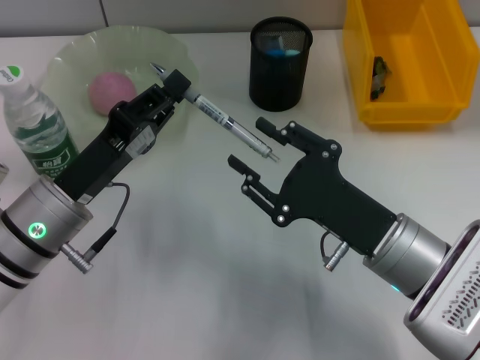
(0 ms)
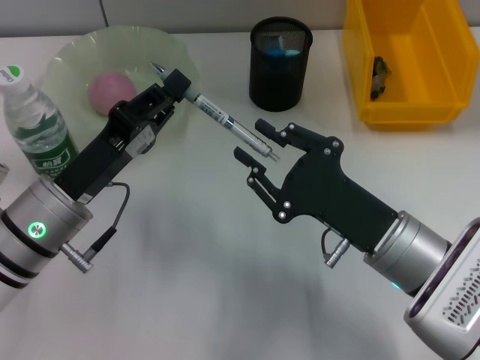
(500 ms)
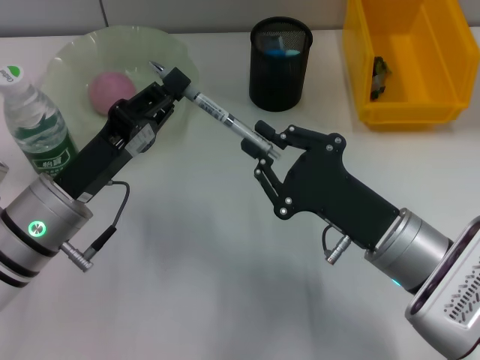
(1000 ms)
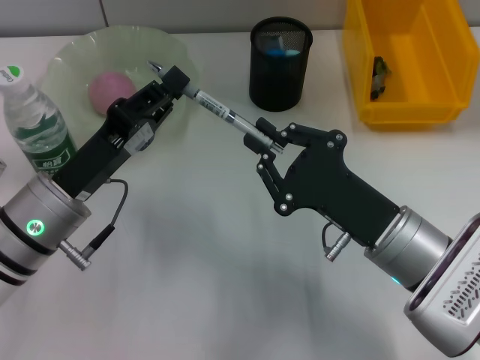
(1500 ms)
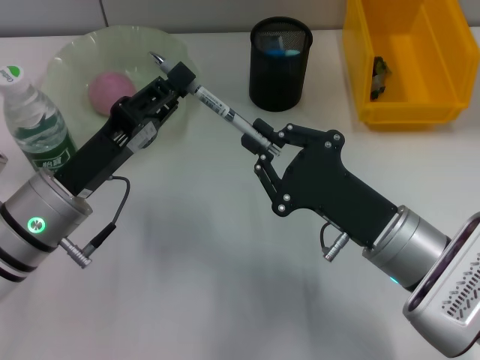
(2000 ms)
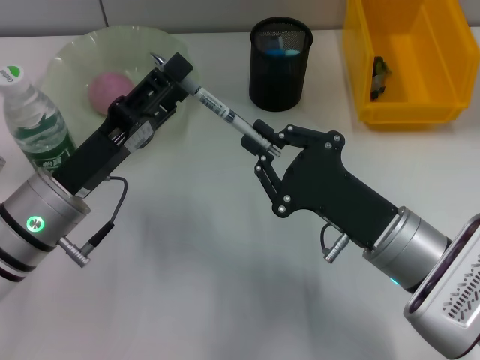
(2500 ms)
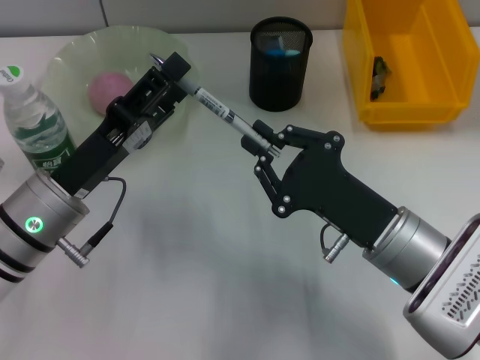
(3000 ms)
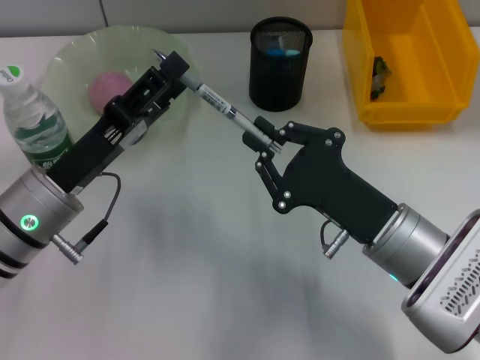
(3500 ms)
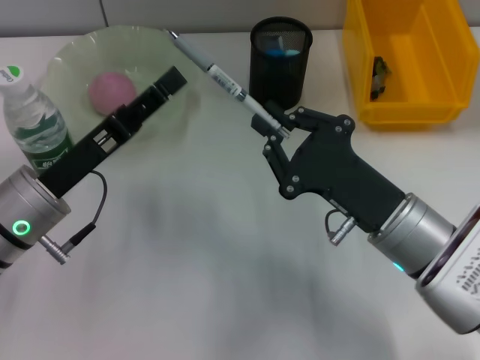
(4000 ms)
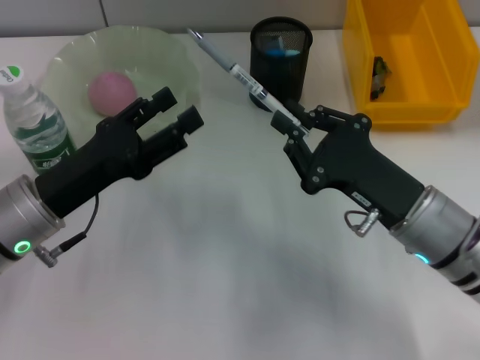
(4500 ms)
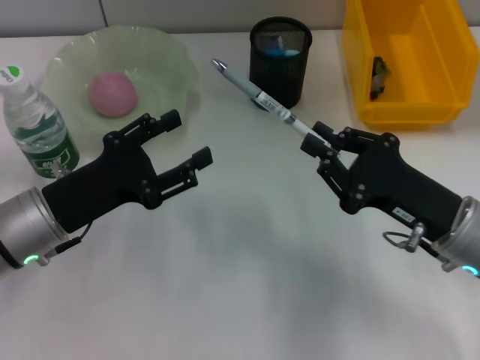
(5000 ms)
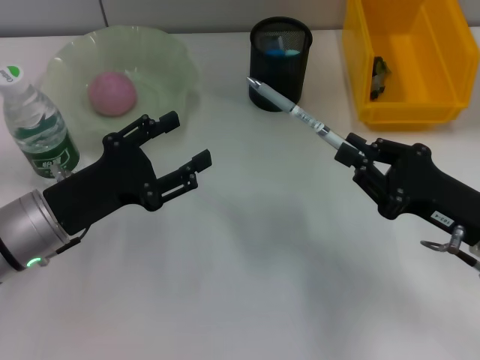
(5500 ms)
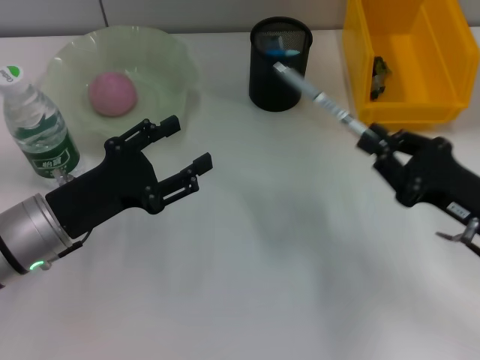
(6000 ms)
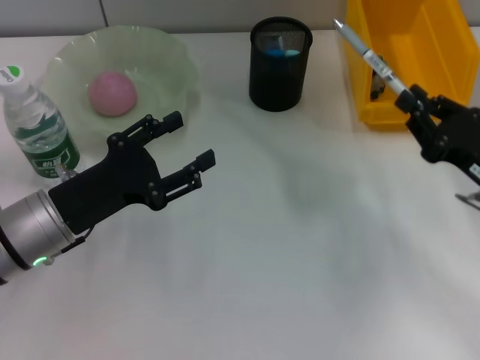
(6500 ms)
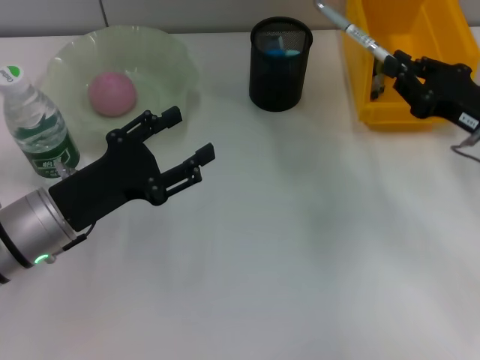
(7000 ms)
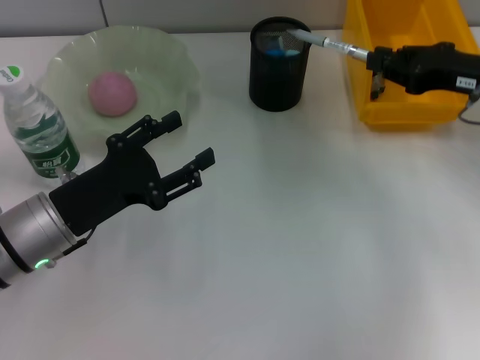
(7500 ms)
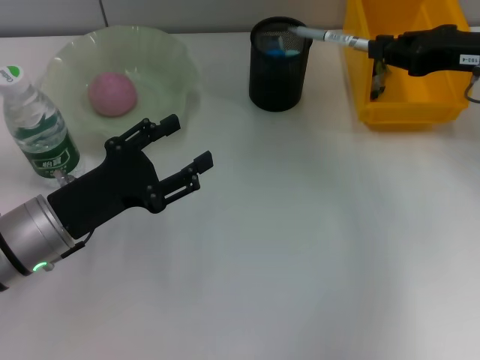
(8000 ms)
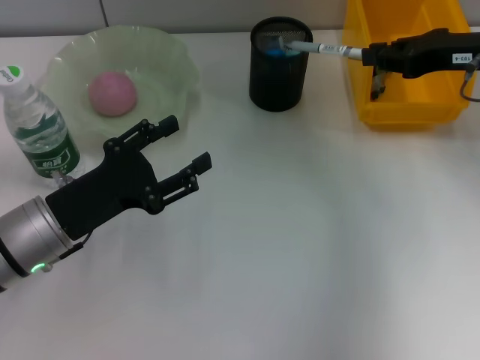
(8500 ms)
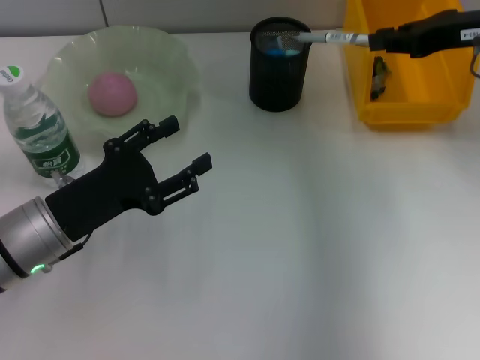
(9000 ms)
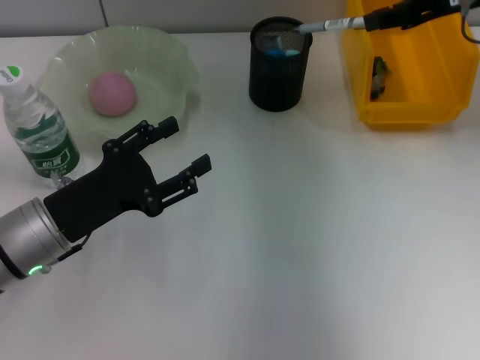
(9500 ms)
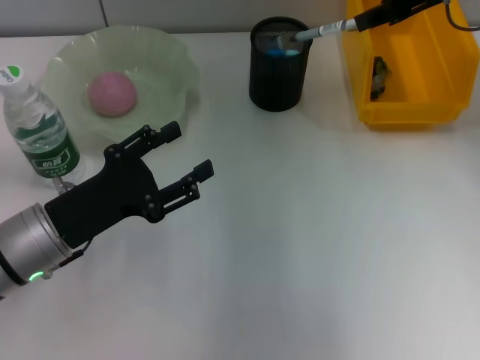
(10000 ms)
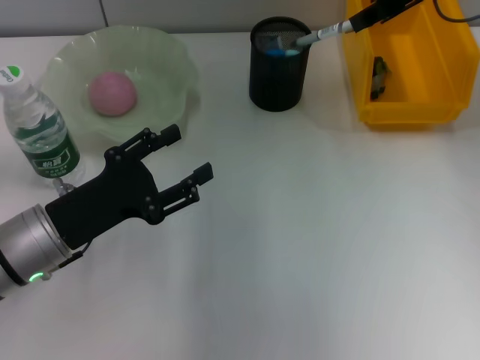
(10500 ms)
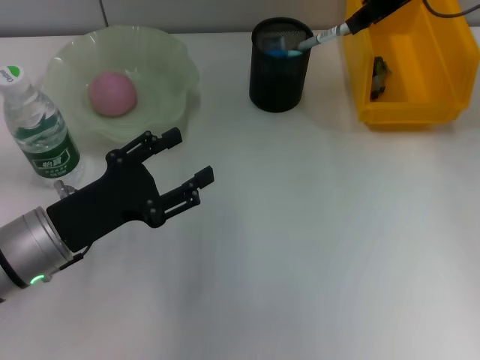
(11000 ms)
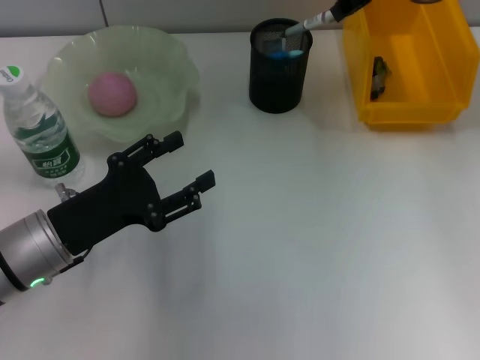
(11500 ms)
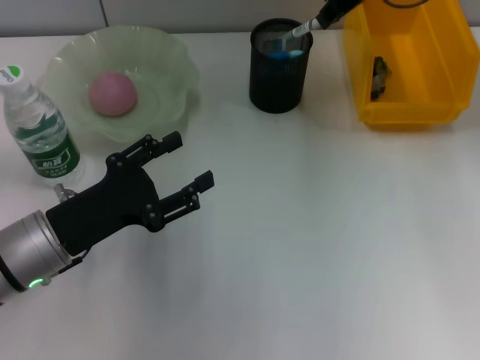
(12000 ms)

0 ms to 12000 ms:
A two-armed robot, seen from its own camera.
Step, 0 ms to 3500 ms: Pass the gray spring-action pen from the left hand to the right hand.
0 ms to 2000 ms: The right gripper closes its fingers.
2000 ms to 4000 ms: The left gripper opens its fingers.
4000 ms to 6000 ms: The right gripper travels to the right by roughly 10 cm.
6000 ms to 8000 ms: The right gripper travels forward and upward by about 20 cm.
8000 ms to 10000 ms: The right gripper moves upward, to the left and forward, about 10 cm.
10000 ms to 12000 ms: The right gripper is displaced to the left by roughly 10 cm.

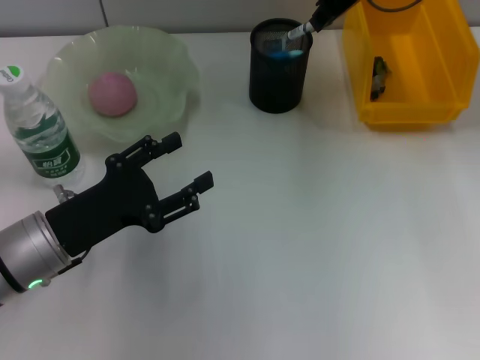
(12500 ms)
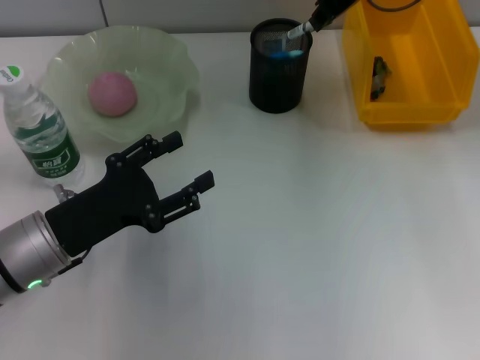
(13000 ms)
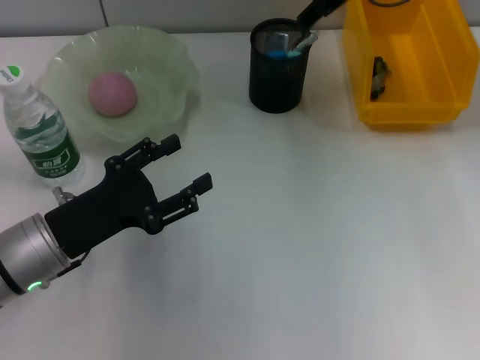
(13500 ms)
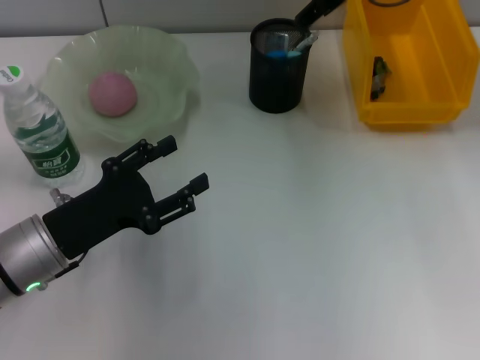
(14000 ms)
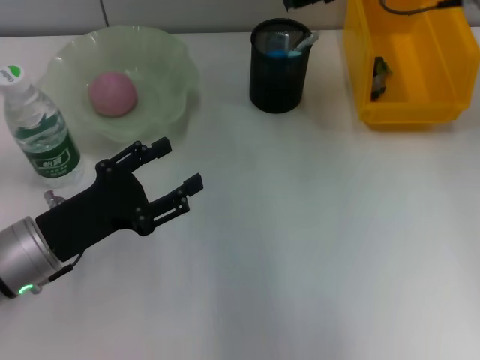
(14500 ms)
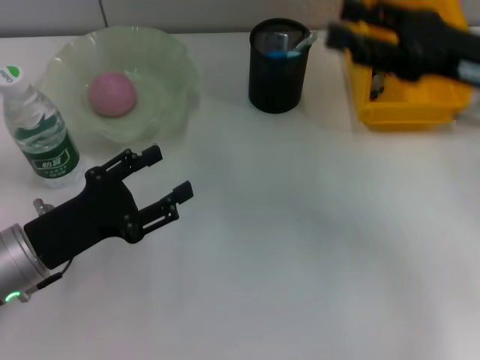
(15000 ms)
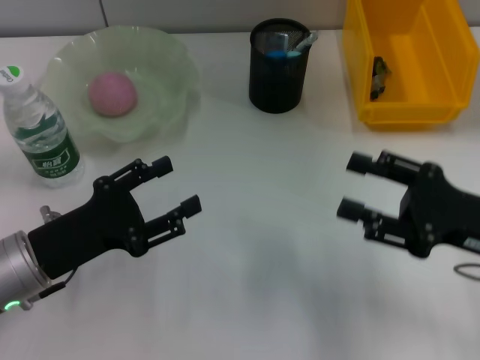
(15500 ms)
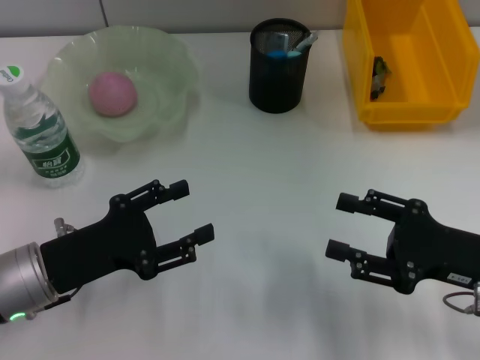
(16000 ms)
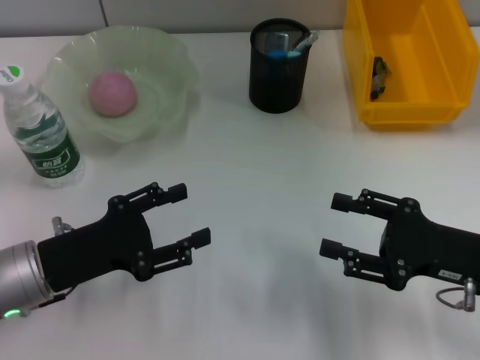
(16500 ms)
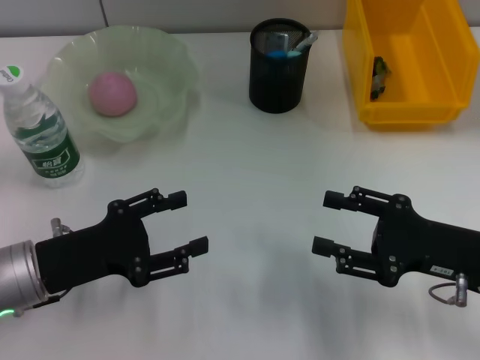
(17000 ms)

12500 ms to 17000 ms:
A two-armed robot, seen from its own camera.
12500 ms to 14500 ms: The right gripper ends up roughly 5 cm from where it was, and opens up.
14500 ms to 17000 ms: The right gripper travels downward, backward and to the right by about 30 cm.

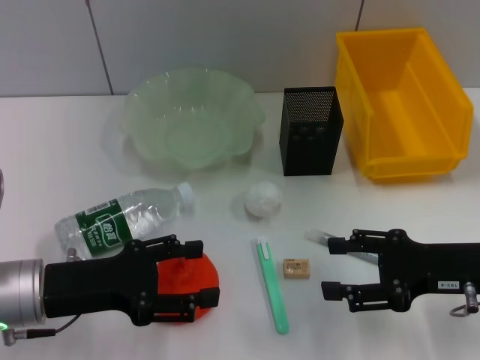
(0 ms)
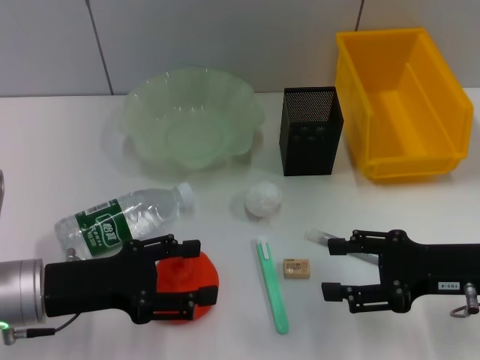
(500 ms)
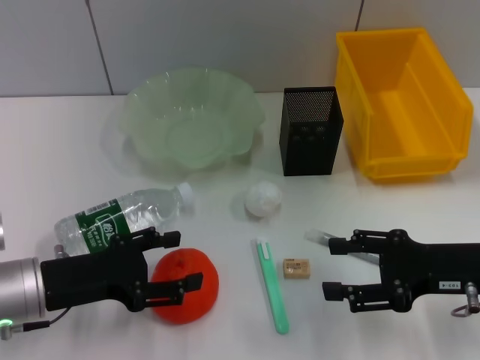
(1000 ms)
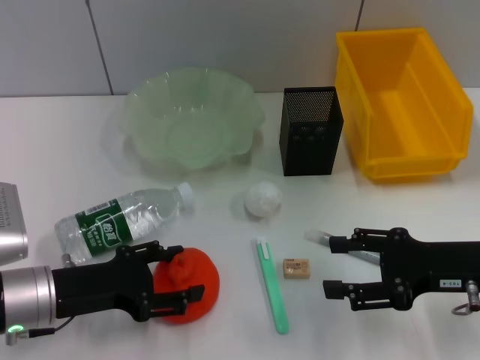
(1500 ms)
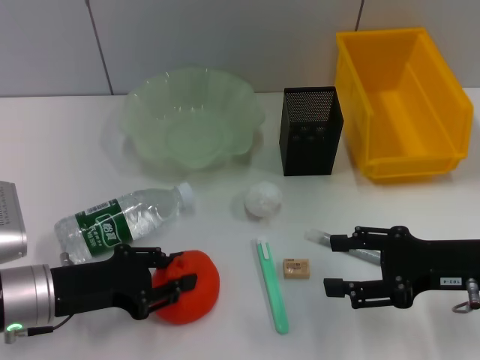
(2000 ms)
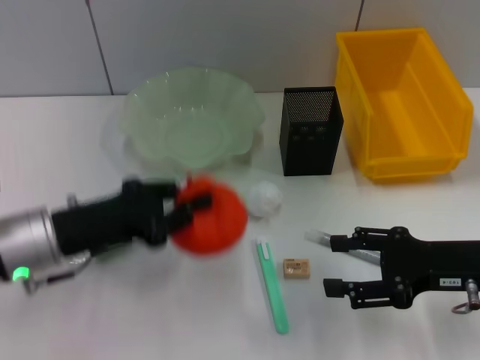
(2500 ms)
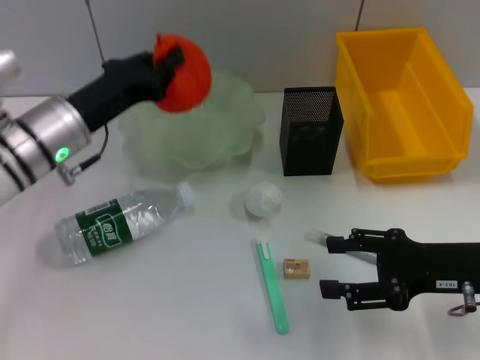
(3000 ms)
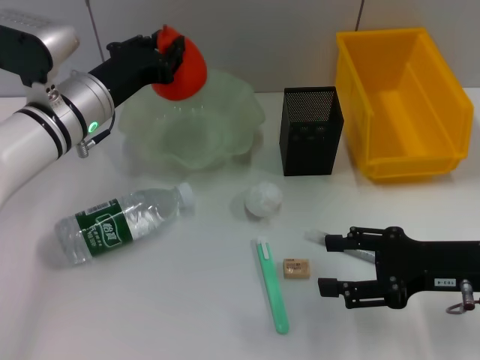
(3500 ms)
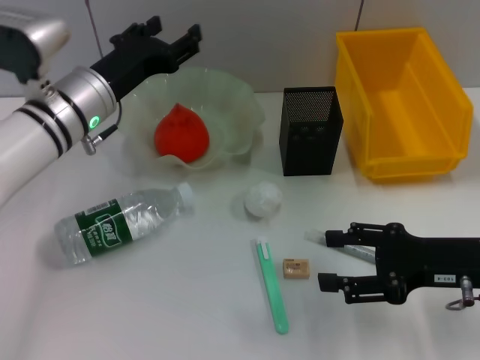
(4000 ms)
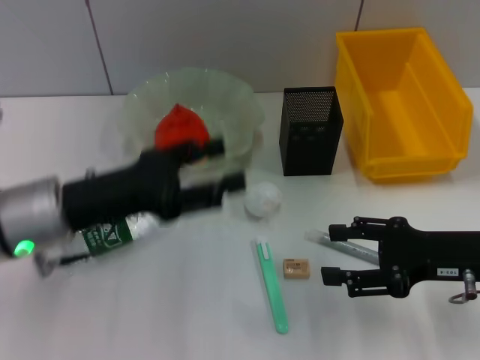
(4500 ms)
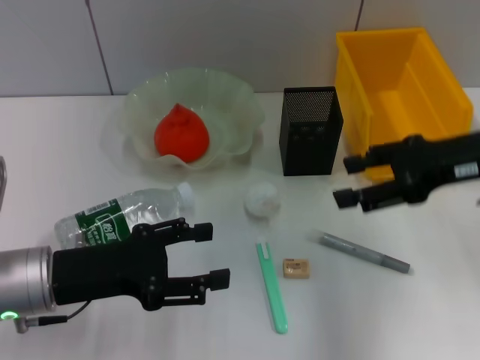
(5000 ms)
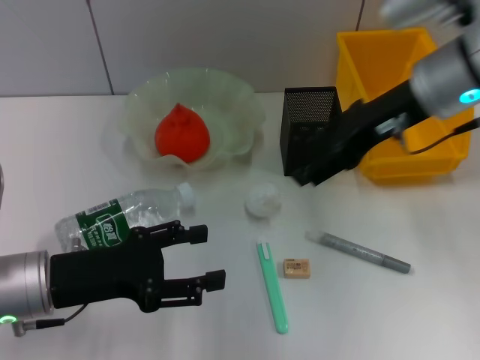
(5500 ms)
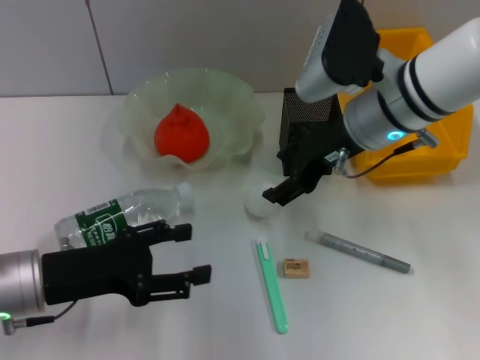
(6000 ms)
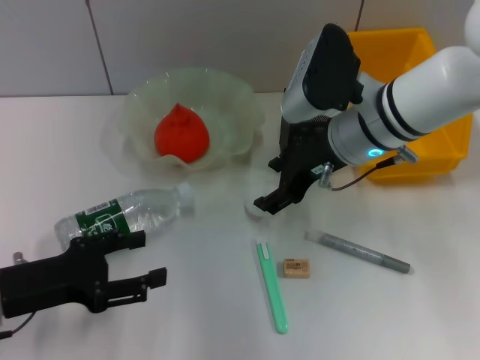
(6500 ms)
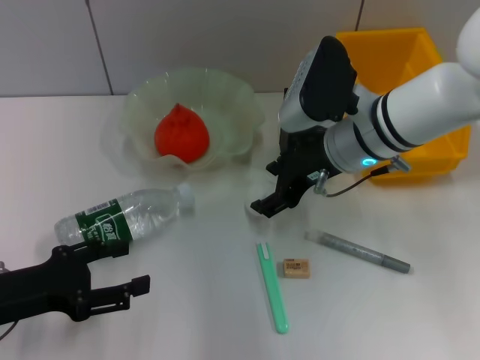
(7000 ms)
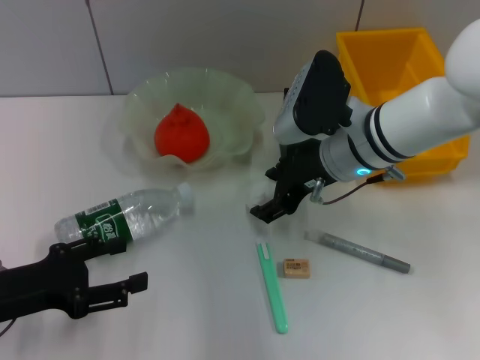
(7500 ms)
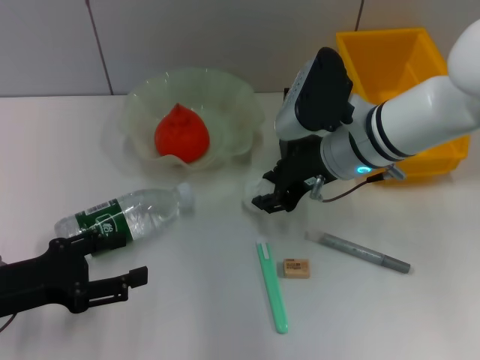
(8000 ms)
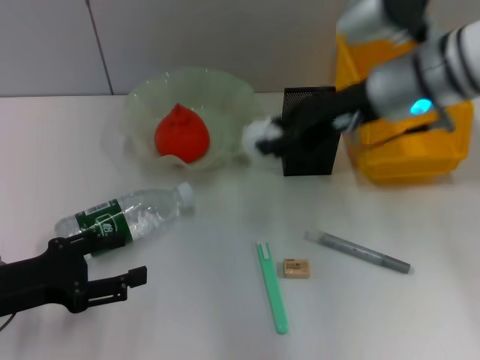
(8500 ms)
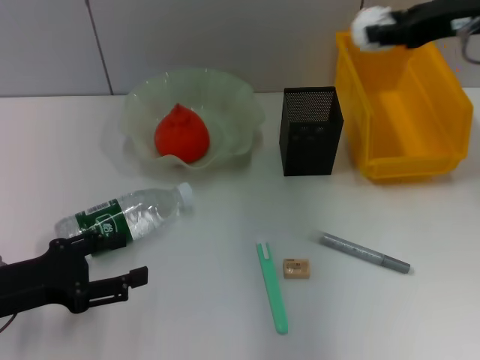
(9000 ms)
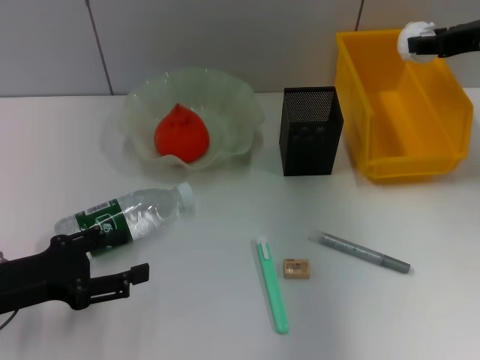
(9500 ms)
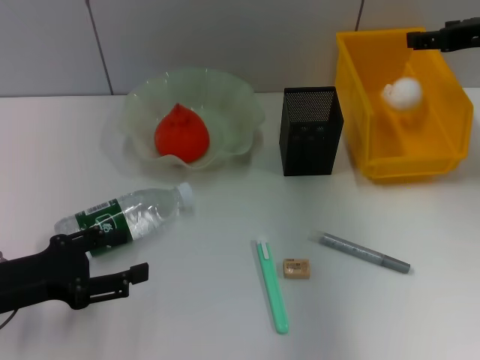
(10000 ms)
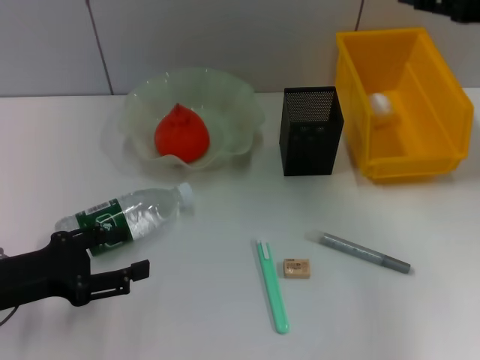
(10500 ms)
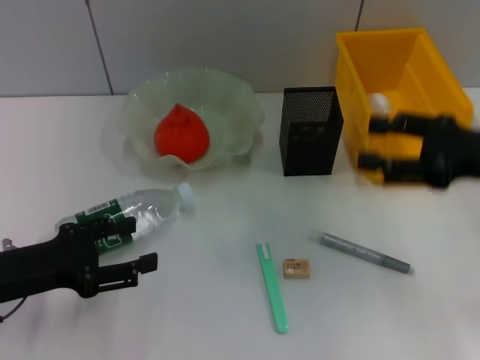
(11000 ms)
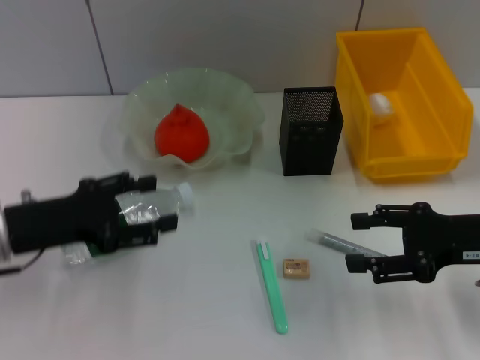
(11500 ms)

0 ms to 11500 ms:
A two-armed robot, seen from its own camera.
Step, 0 ms to 2000 ms: Grab the orange with the left hand.
Step, 2500 ms to 4000 ms: Place the orange into the fruit bowl with the left hand.
Step, 4500 ms to 7500 ms: Grab the paper ball with the right hand.
Step, 8500 ms to 10000 ms: Place the paper ball into the trash can with the right hand.
0 ms to 2000 ms: The left gripper closes up.
2000 ms to 4000 ms: The left gripper shifts some 20 cm forward, upward and to the right, and closes and opens again.
4000 ms to 6000 ms: The right gripper travels to the left, forward and upward by roughly 20 cm. The left gripper goes roughly 15 cm backward and to the left.
6000 ms to 7500 ms: The right gripper is displaced downward by some 5 cm. Meanwhile the left gripper shifts about 5 cm to the left.
7500 ms to 9500 ms: The right gripper travels to the right and upward by some 20 cm, and closes up.
9500 ms to 11500 ms: The right gripper moves backward and downward, roughly 20 cm, and opens; the left gripper shifts by approximately 5 cm.
